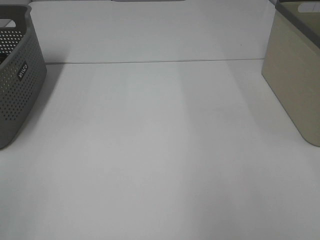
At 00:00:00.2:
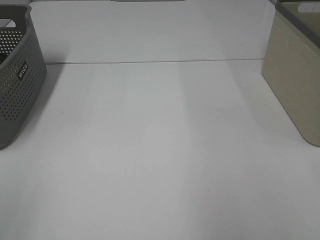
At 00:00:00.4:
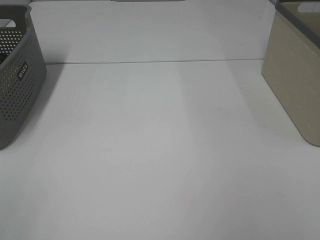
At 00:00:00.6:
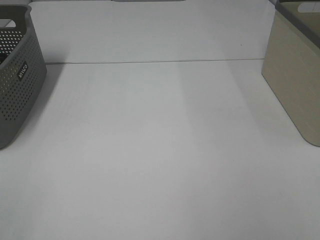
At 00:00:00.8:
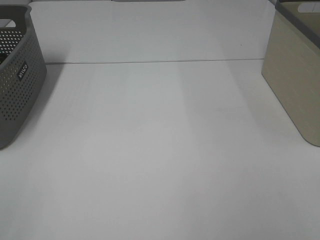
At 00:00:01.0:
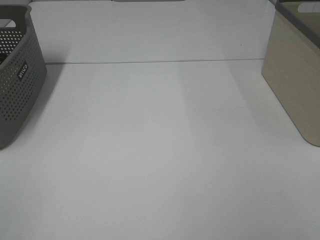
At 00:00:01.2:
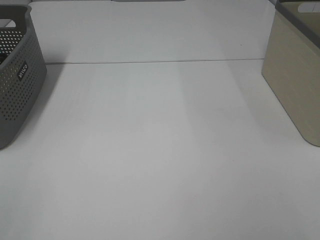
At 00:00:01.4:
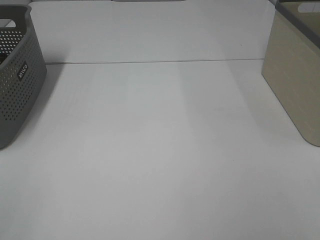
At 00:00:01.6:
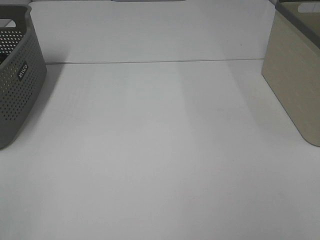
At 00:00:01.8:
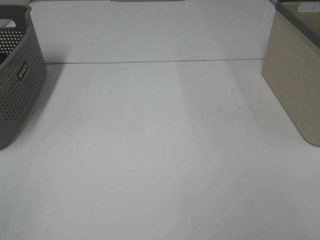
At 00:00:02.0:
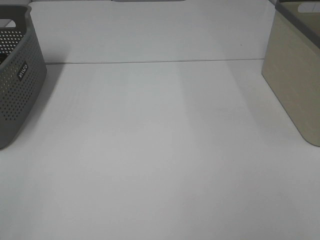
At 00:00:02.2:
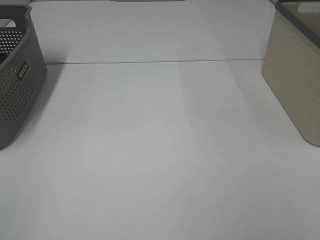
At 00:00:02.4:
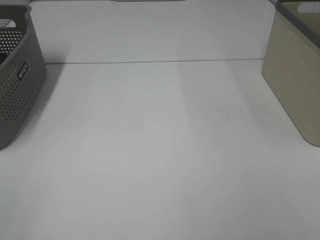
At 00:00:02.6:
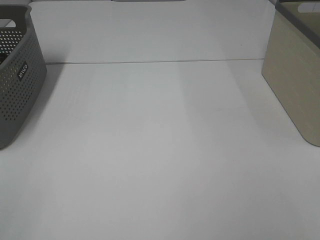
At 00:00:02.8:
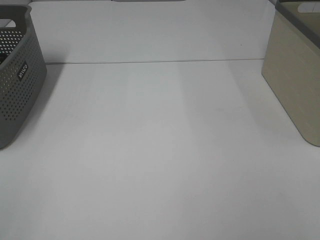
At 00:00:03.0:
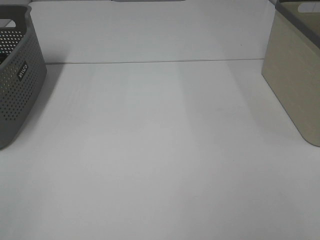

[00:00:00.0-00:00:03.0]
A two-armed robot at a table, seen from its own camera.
00:00:01.6 to 00:00:03.0: The two grippers keep their place.
